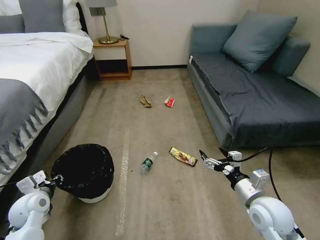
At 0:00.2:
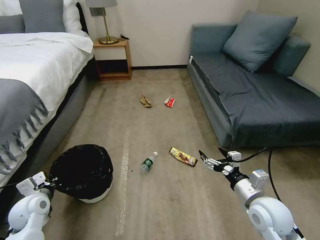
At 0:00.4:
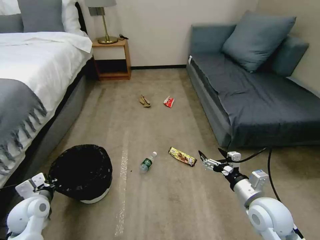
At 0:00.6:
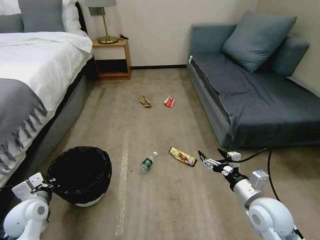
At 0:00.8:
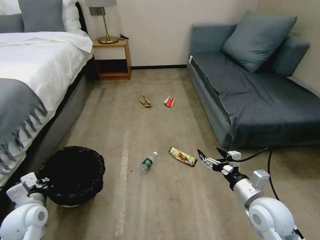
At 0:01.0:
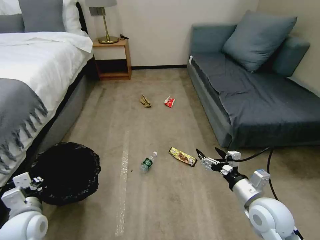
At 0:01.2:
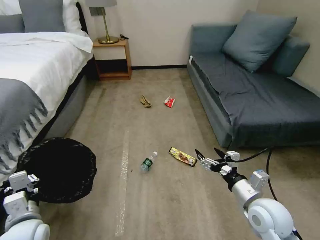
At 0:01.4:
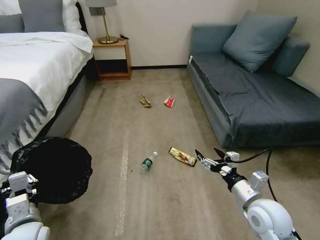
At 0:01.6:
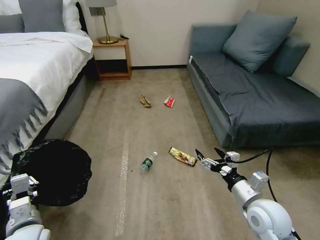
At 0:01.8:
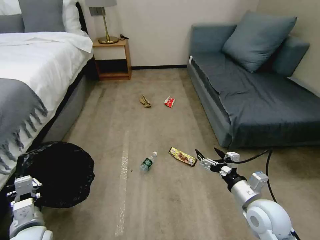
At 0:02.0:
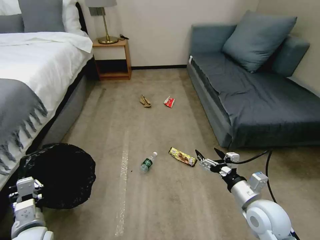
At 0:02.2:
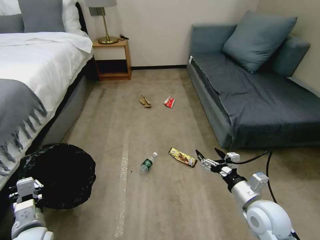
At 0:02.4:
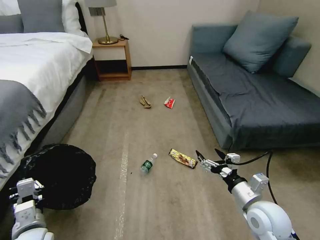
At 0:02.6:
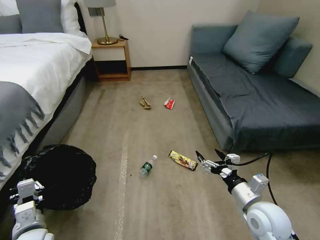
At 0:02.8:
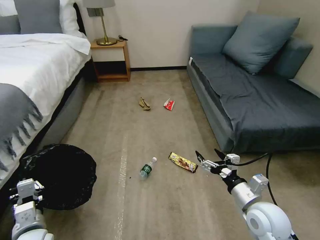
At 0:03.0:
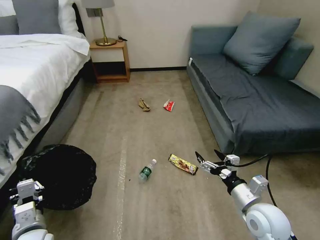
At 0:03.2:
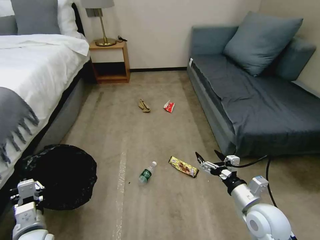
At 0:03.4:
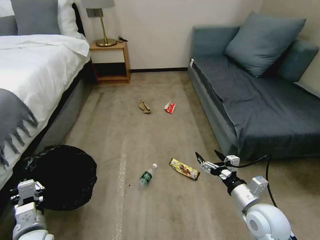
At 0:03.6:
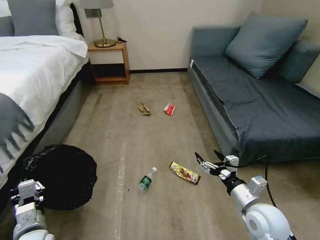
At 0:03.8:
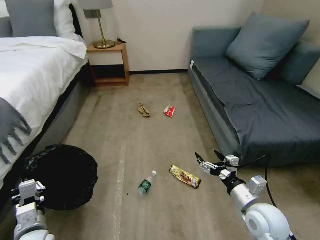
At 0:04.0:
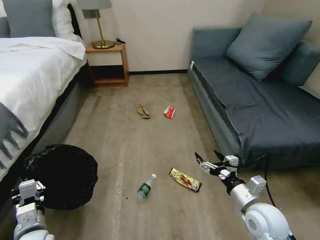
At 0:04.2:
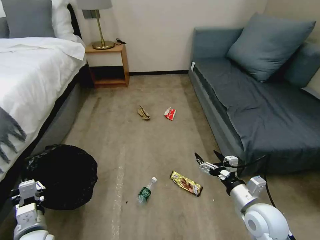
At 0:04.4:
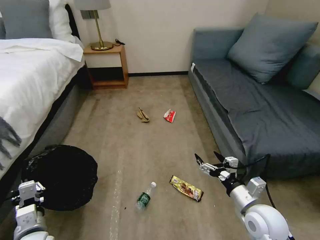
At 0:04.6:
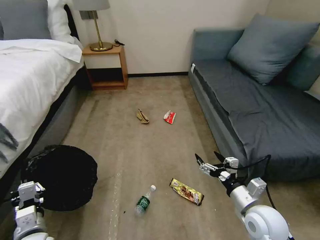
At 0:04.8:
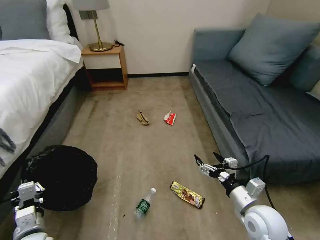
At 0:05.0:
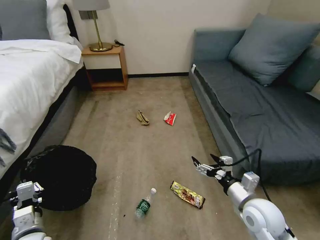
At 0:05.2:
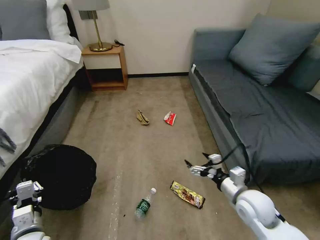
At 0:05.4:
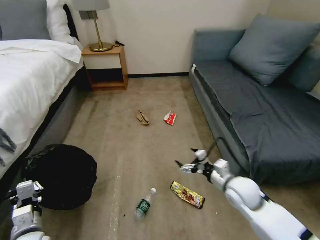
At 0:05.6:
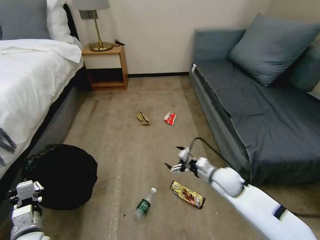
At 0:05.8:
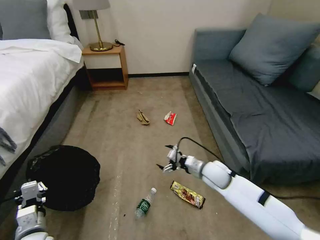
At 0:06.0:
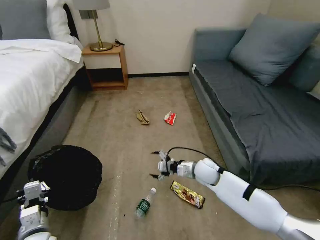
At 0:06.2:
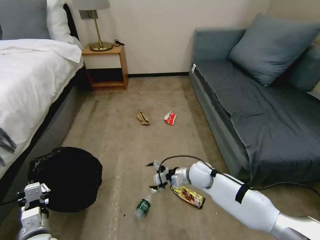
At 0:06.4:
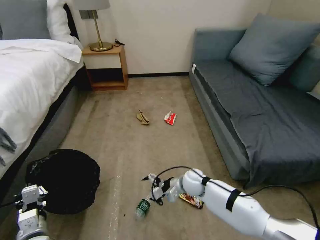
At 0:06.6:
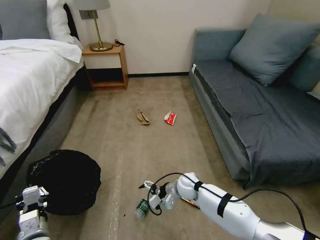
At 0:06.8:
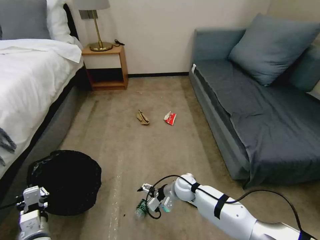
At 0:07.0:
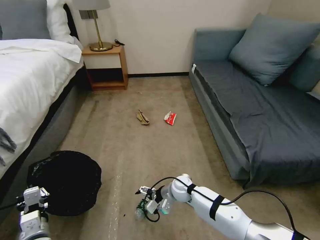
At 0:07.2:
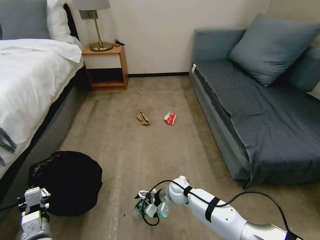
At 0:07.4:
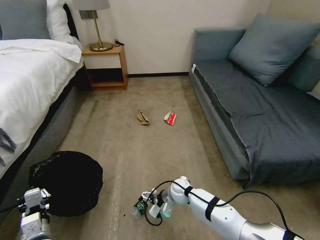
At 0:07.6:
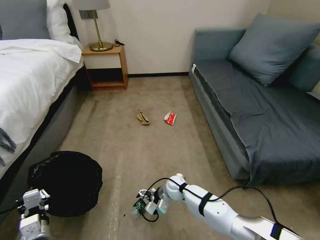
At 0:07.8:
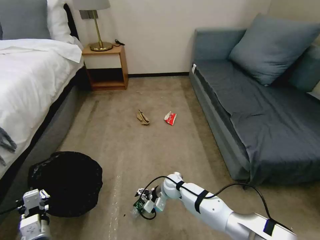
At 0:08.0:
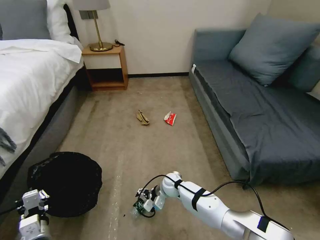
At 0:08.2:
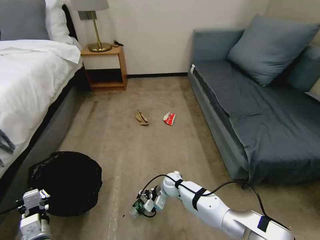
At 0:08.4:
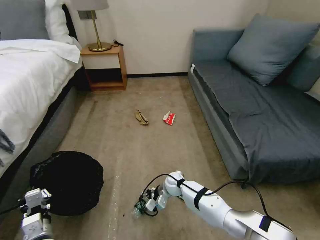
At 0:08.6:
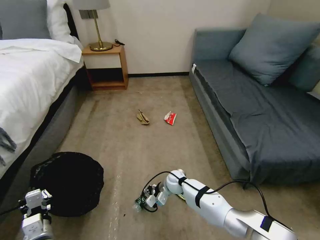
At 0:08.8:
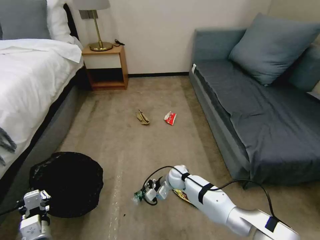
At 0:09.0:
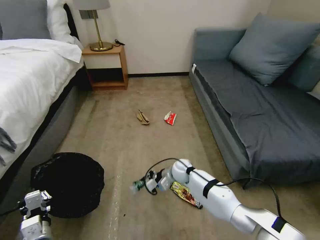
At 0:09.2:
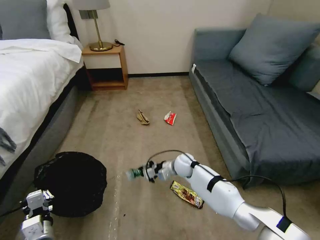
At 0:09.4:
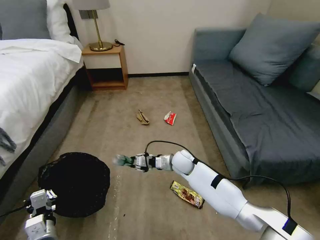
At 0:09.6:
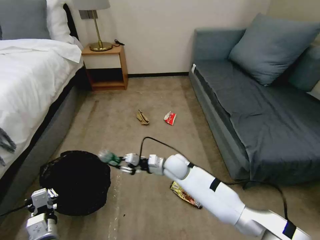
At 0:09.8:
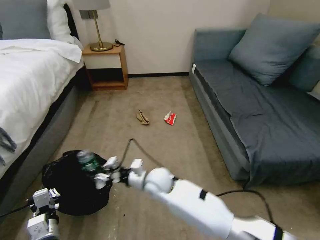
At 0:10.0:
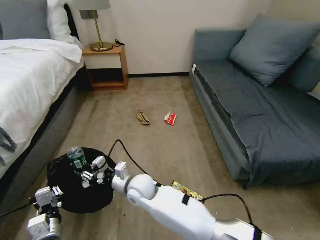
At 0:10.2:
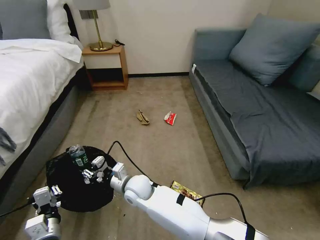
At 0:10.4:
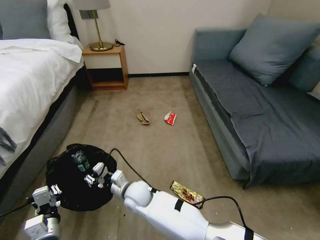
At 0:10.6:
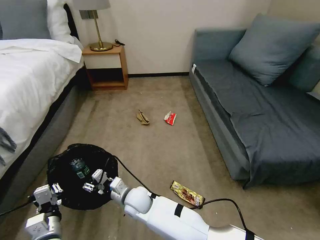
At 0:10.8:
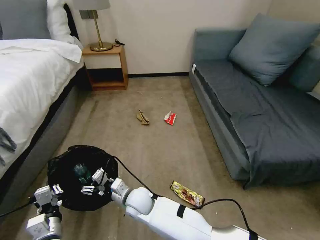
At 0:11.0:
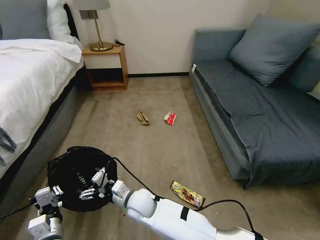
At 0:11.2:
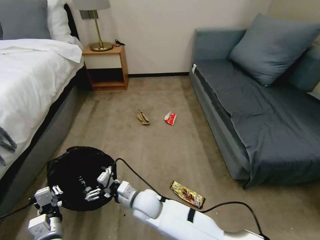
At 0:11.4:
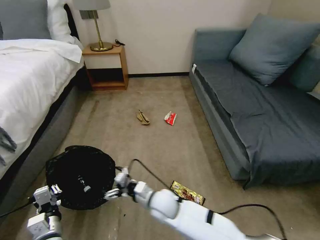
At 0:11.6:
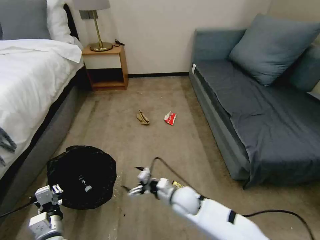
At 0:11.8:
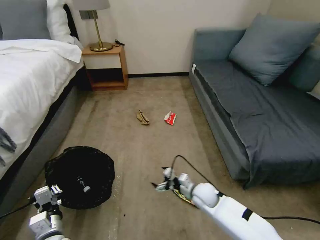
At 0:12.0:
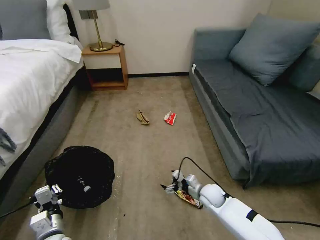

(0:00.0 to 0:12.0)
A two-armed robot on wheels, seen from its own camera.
Task of the whole recording: Pick up the trash bin, then pick up the garbage on the floor and place it into the trash bin.
0:00.0 - 0:01.6: The left gripper travels backward and to the right by about 10 cm, and closes.
0:01.6 - 0:03.0: The grippers make only small movements.
0:04.4 - 0:06.0: The right gripper travels forward and to the left by about 20 cm.
0:06.0 - 0:07.6: The right gripper moves to the left and downward, approximately 15 cm.
0:07.6 - 0:09.0: The right gripper heads forward, covering approximately 5 cm, and closes.
0:09.0 - 0:10.4: The right gripper heads to the left and backward, covering approximately 20 cm.
0:10.4 - 0:12.0: The right gripper travels to the right by roughly 30 cm, and opens its fingers.

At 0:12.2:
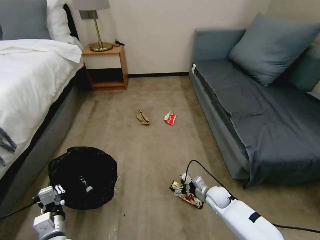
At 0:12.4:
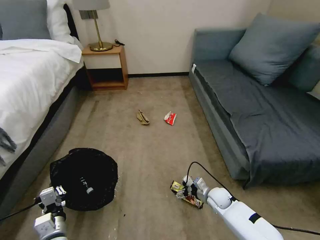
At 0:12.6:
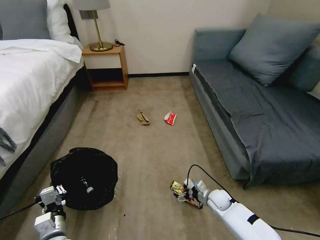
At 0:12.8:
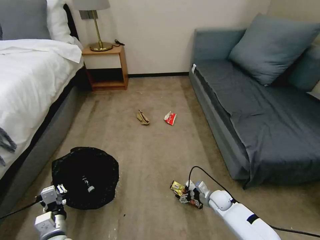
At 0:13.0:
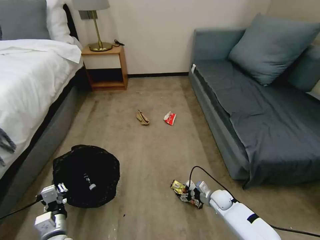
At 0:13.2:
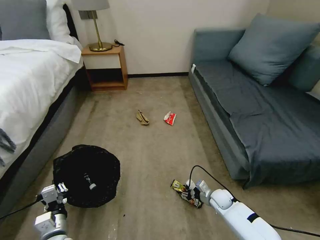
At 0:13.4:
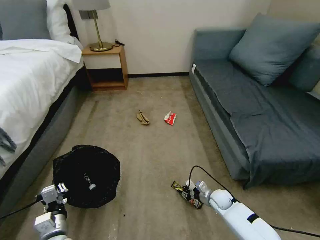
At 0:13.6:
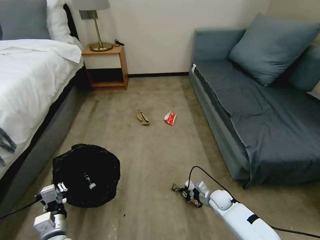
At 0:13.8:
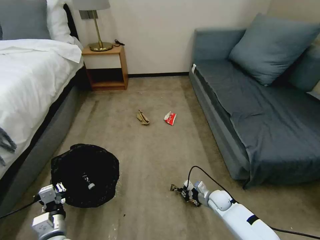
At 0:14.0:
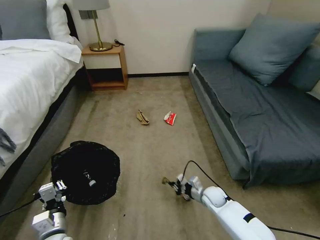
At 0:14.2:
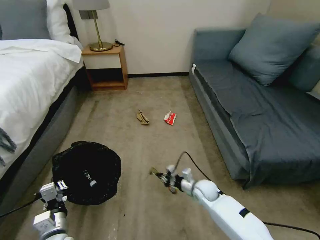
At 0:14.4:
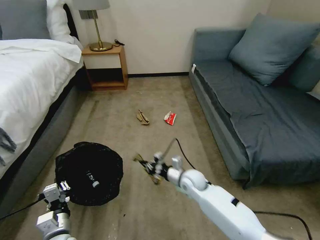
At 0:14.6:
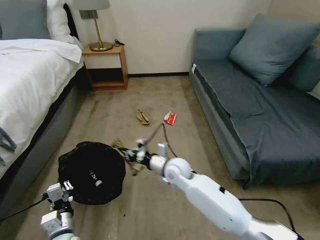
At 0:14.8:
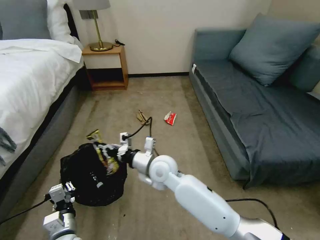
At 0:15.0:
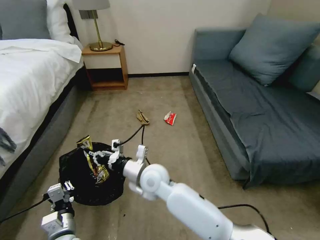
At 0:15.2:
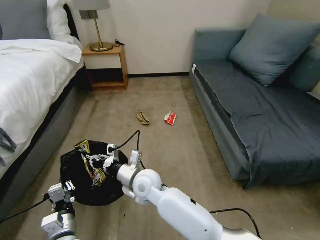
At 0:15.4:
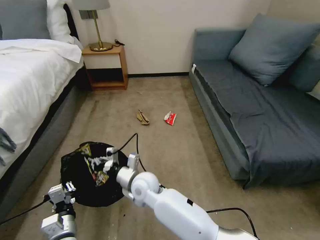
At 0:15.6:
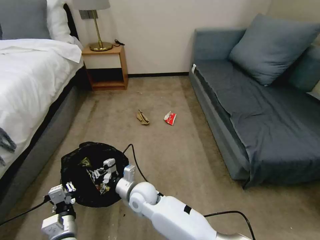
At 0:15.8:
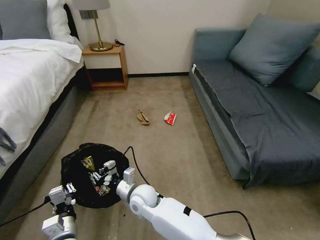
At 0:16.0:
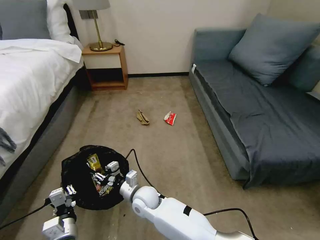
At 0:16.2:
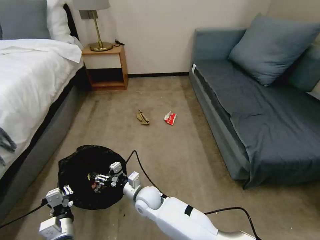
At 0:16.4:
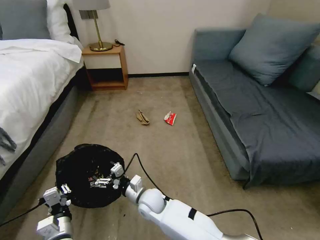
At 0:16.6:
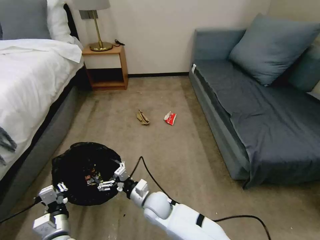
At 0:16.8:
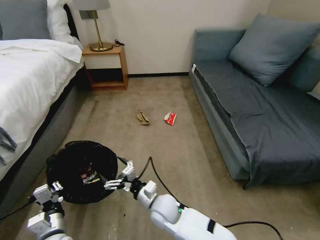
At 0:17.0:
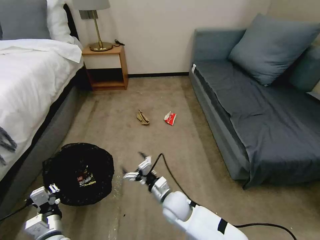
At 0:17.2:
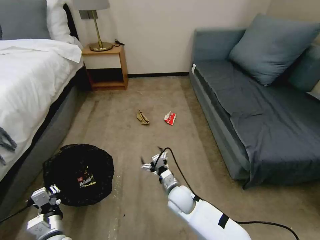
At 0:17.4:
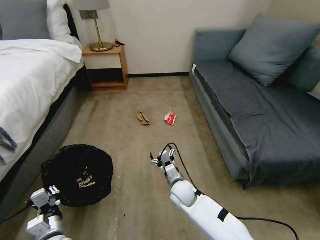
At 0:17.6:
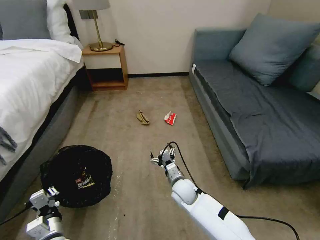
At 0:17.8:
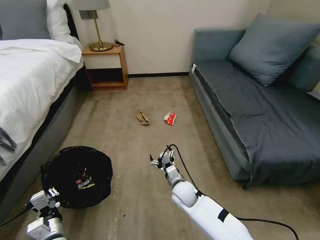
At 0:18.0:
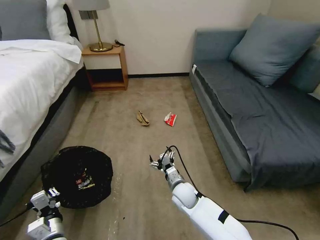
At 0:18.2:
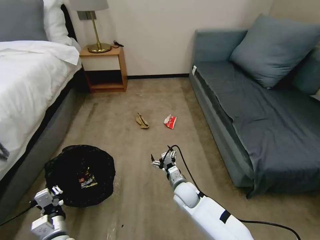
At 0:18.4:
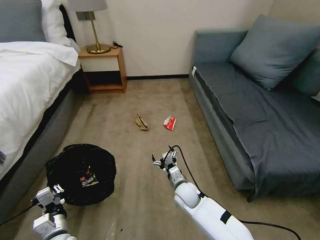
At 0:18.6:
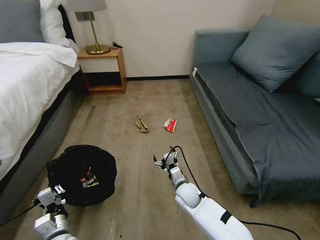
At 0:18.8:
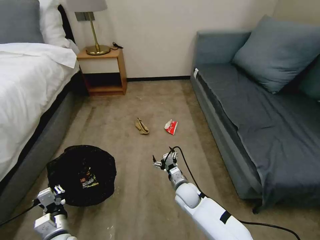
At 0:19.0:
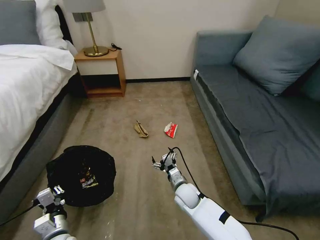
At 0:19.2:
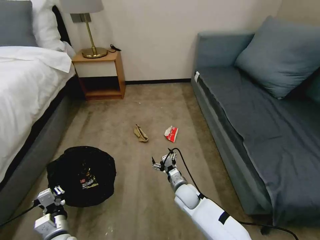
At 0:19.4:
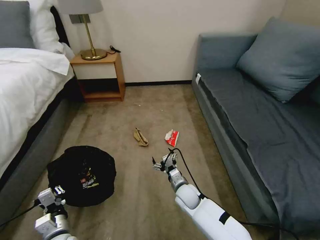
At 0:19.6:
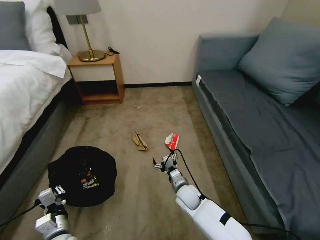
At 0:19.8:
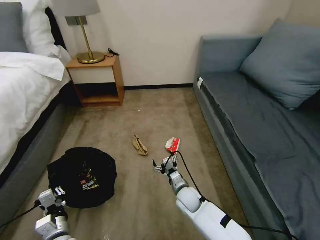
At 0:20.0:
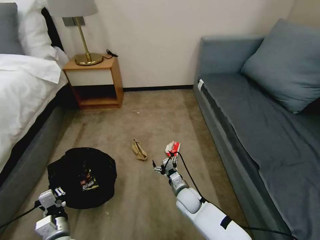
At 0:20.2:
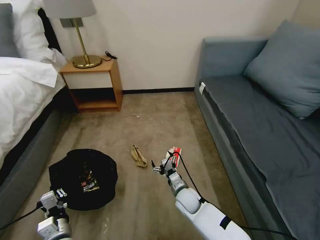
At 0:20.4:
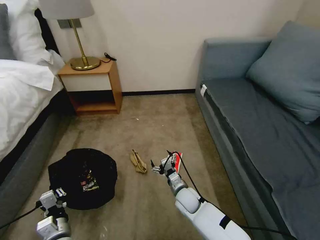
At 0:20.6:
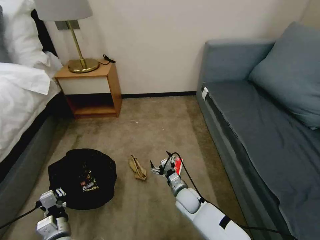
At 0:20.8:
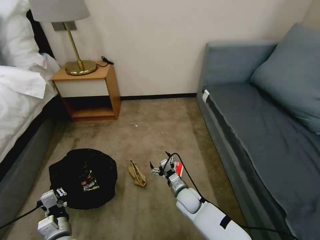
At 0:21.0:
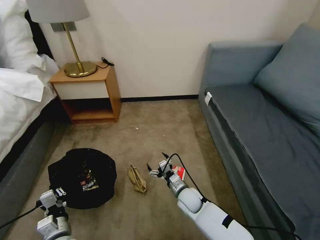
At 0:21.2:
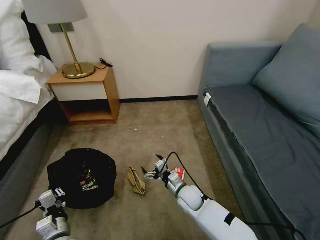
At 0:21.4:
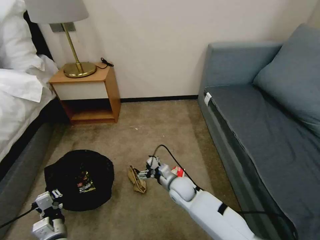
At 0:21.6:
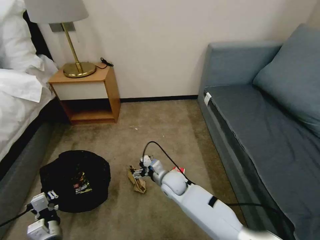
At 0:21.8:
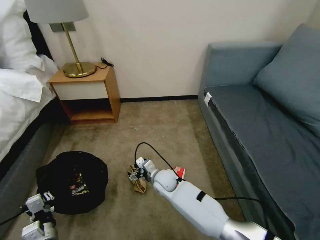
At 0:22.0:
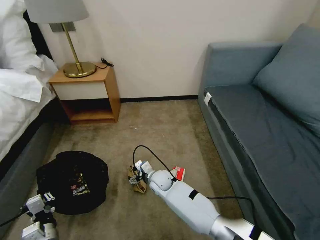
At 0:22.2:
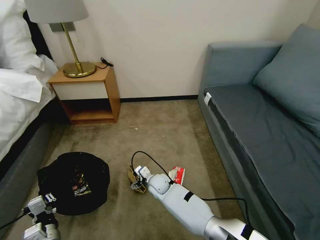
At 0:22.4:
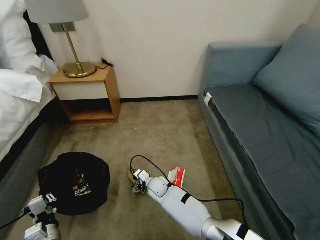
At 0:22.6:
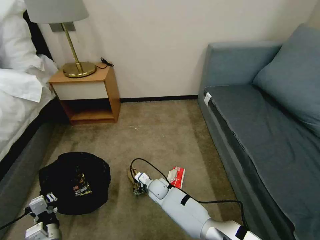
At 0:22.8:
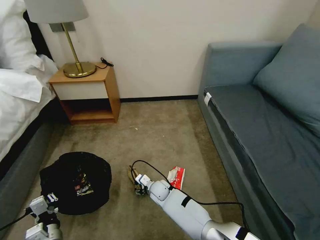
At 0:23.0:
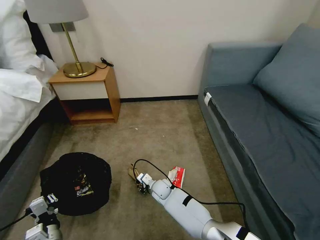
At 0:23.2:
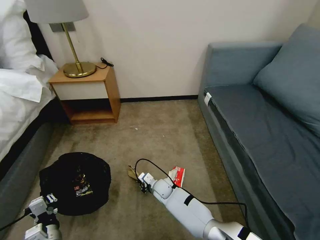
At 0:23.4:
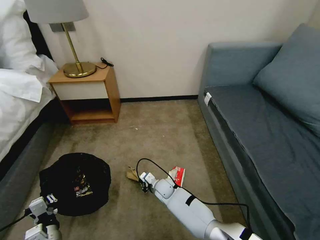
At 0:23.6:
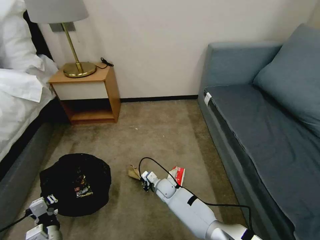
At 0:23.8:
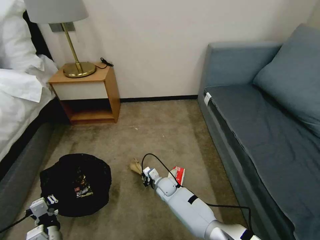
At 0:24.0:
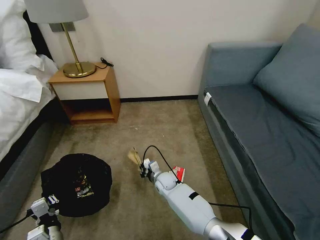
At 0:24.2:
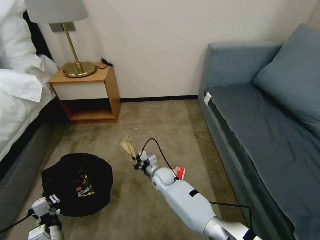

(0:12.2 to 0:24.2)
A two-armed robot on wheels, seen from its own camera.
Task of the whole recording: Pick up the trash bin, then pick up the garbage on the floor and place it into the trash bin.
0:12.2 - 0:13.8: The right gripper closes up.
0:13.8 - 0:15.2: The right gripper moves to the left and upward, about 40 cm.
0:15.2 - 0:16.6: The right gripper travels downward by approximately 10 cm, and opens up.
0:16.6 - 0:18.2: The right gripper goes some 10 cm to the right and forward.
0:21.2 - 0:22.6: The right gripper heads to the left and forward, covering about 15 cm.
0:22.6 - 0:24.2: The right gripper travels upward by about 5 cm, and closes up.
